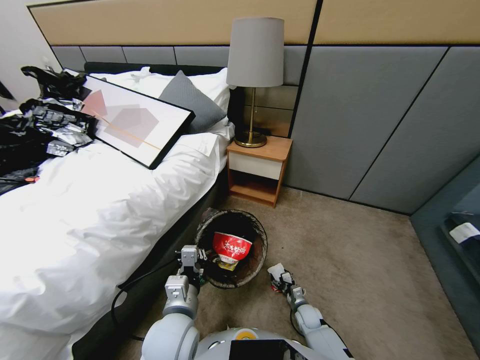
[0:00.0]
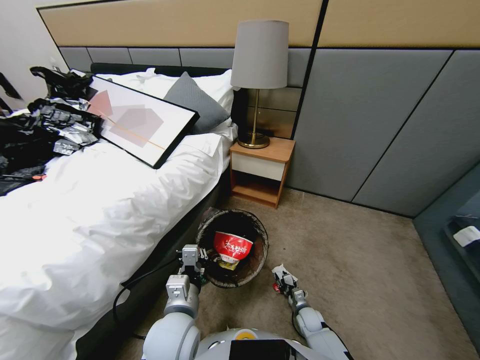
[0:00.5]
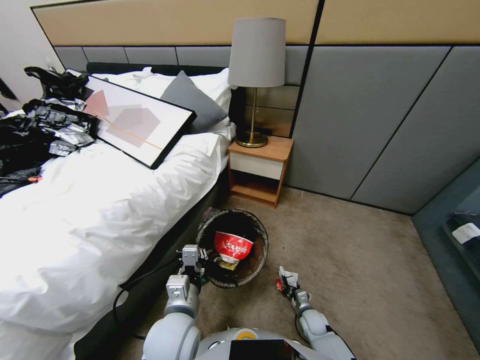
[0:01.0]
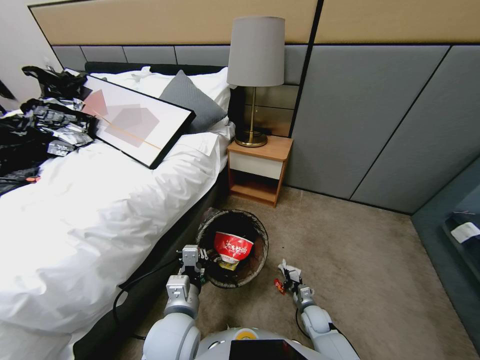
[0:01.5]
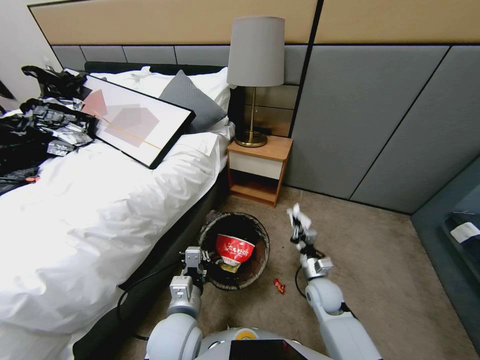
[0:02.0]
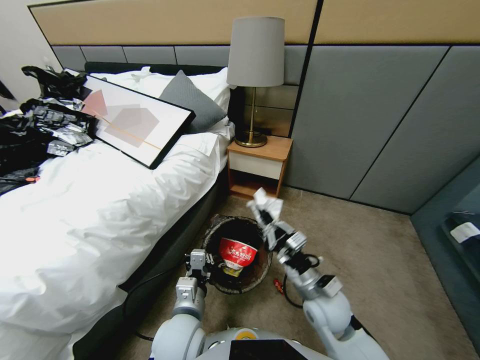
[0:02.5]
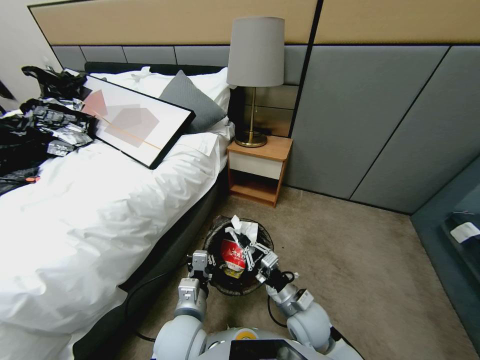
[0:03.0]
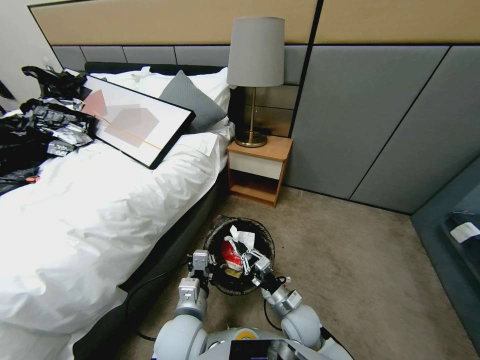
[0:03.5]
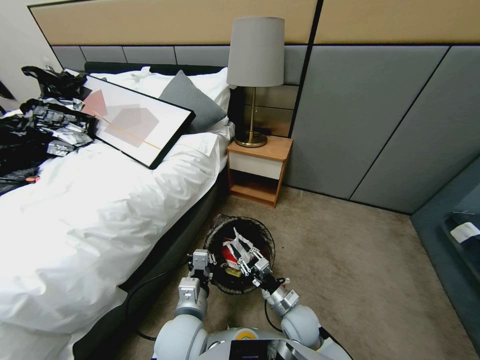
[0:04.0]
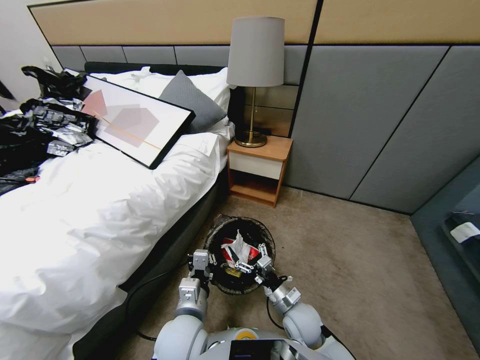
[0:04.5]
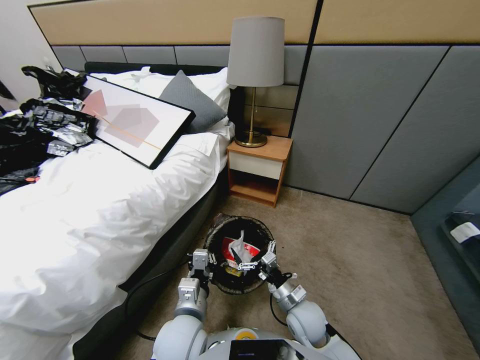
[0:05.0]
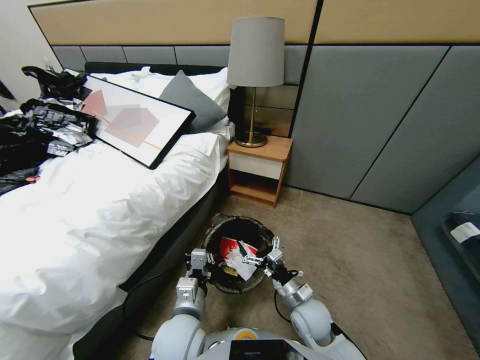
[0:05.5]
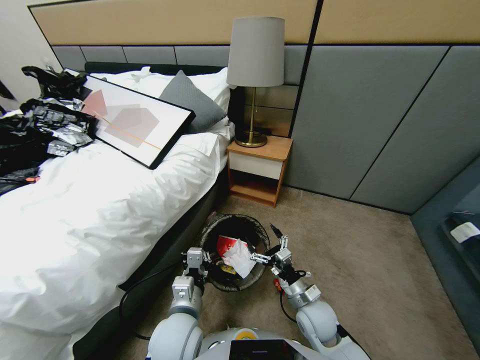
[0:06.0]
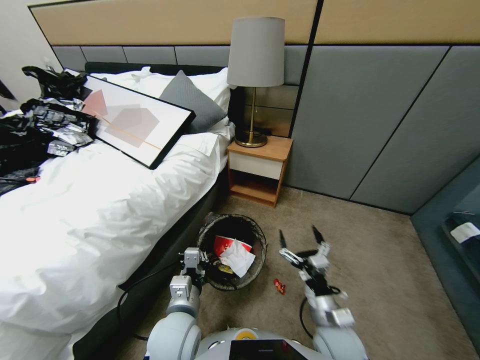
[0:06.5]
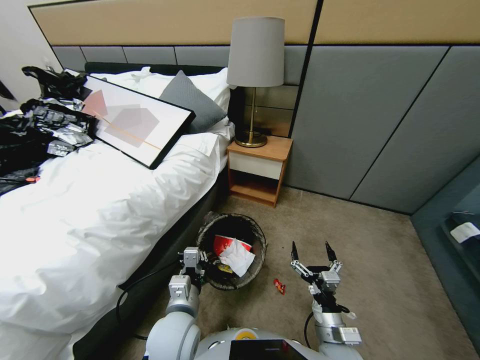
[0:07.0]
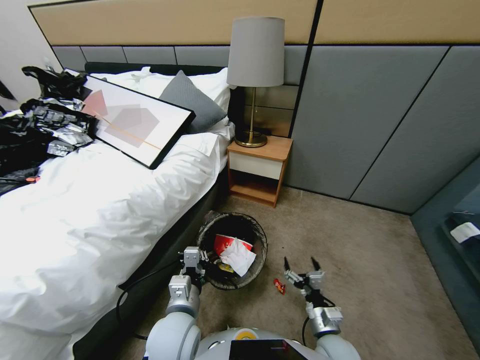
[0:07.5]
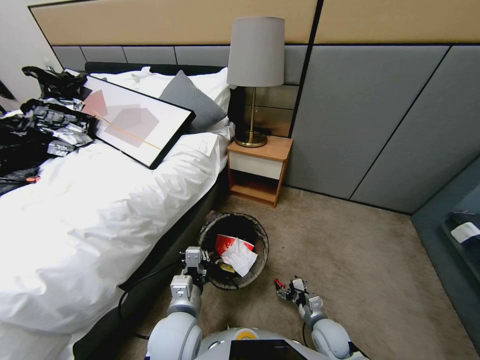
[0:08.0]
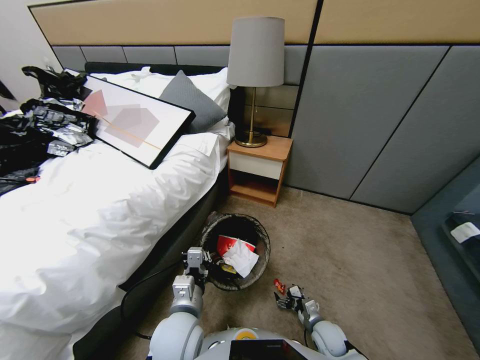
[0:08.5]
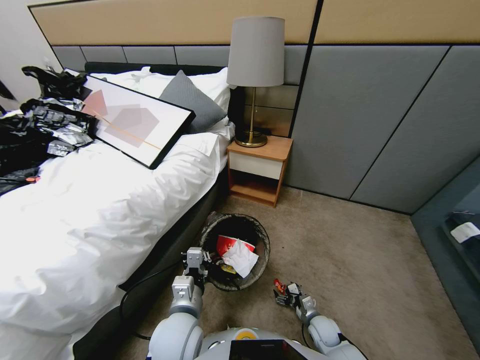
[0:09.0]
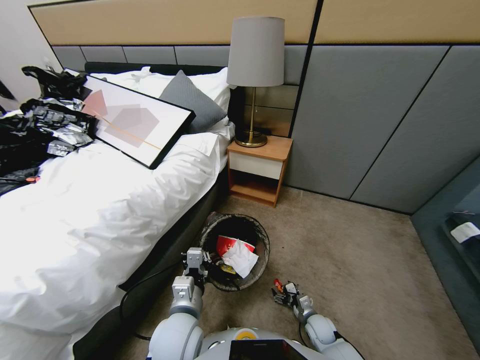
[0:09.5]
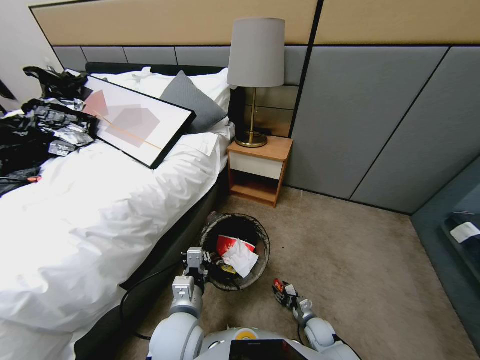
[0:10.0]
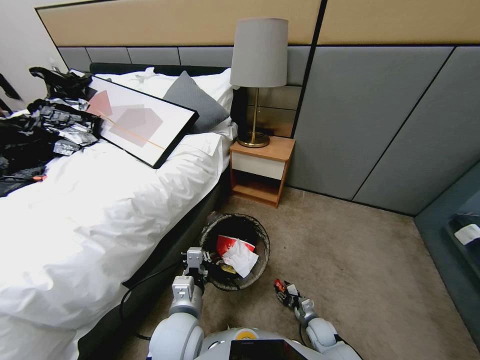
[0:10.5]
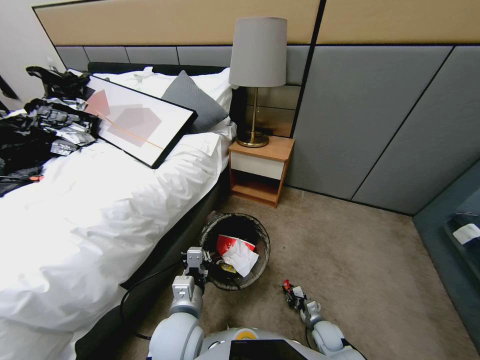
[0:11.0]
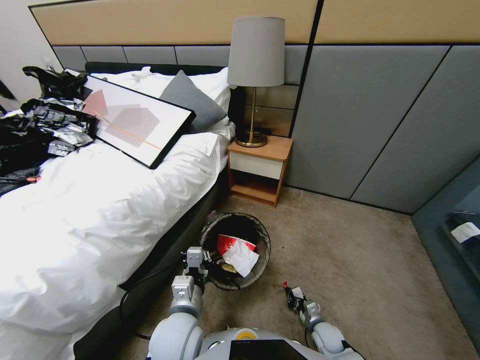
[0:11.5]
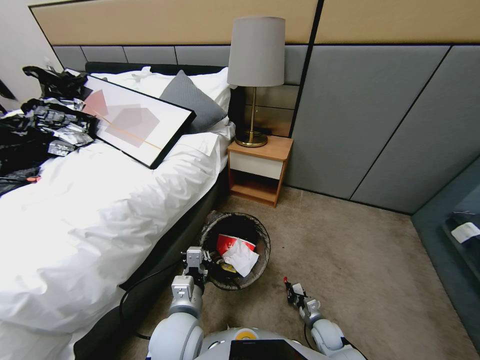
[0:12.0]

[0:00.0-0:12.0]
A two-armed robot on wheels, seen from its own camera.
Task of the whole recording: Pick up the trash bin, then pick up the garbage from the floor and place it into the trash bin.
0:00.0 to 0:02.0: The right gripper heads upward, covering about 25 cm, and closes.
0:02.0 to 0:04.0: The right gripper shifts about 10 cm to the left and backward, goes upward and returns, roughly 10 cm each way, and opens up.
0:04.0 to 0:06.0: The right gripper shifts by some 5 cm, and opens its fingers.
0:06.0 to 0:08.0: The right gripper goes some 15 cm downward and to the right.
0:08.0 to 0:10.0: The right gripper travels downward by some 10 cm, and closes.
0:10.0 to 0:12.0: The right gripper closes its fingers.

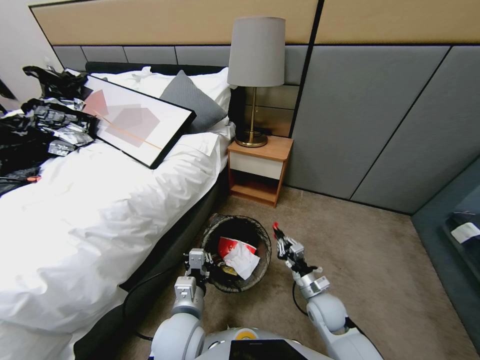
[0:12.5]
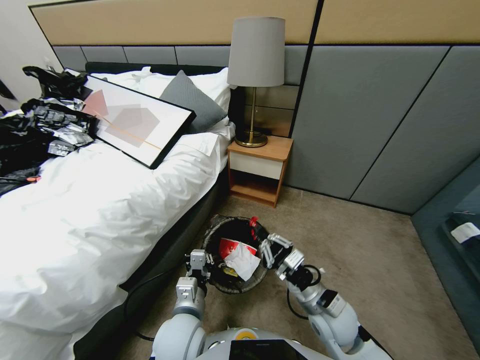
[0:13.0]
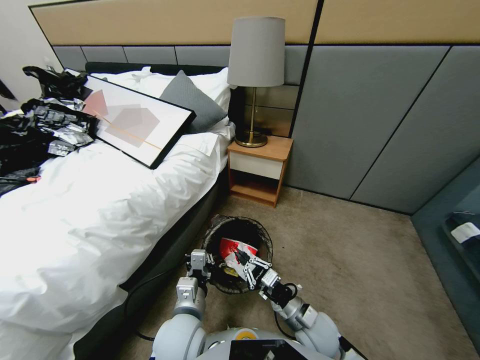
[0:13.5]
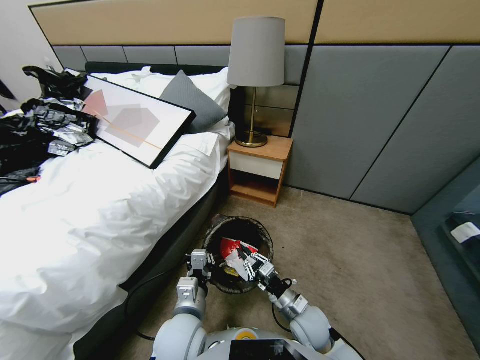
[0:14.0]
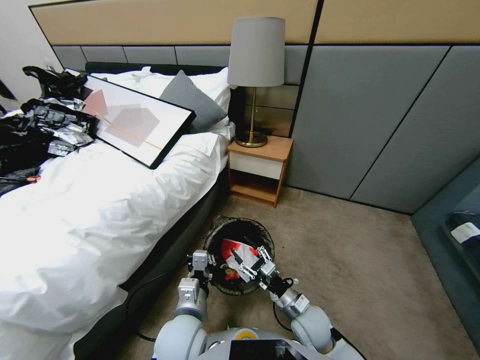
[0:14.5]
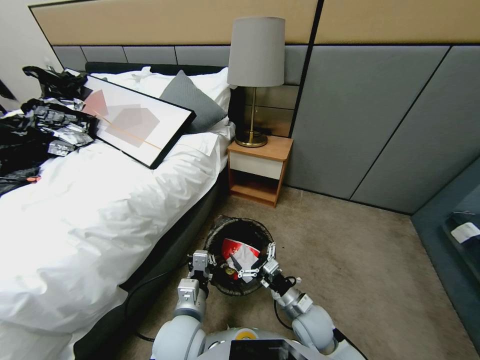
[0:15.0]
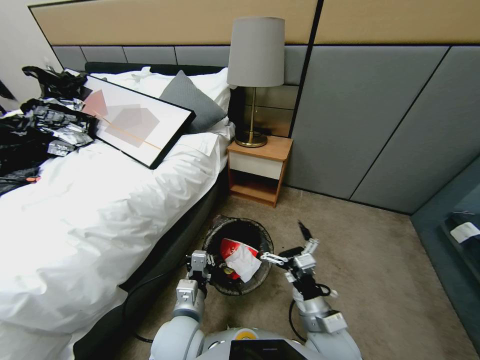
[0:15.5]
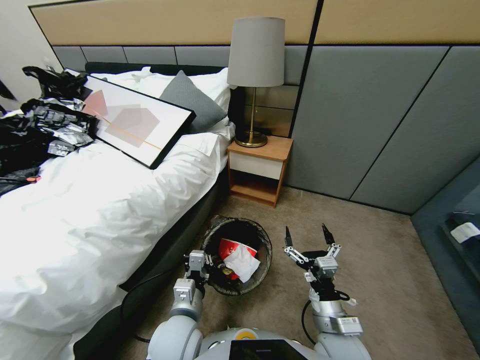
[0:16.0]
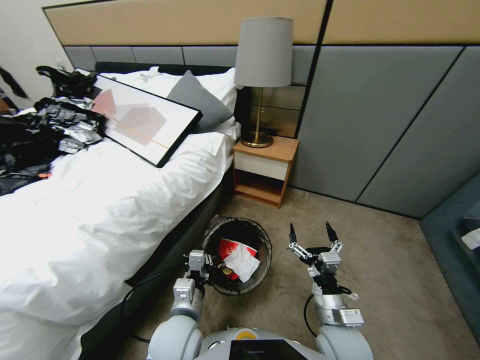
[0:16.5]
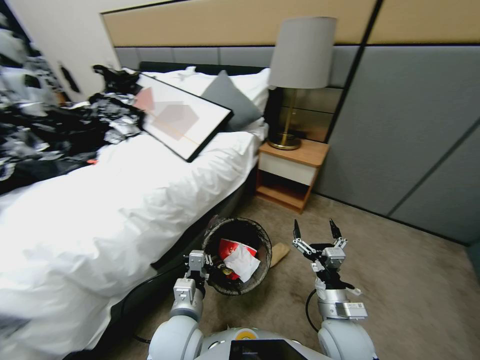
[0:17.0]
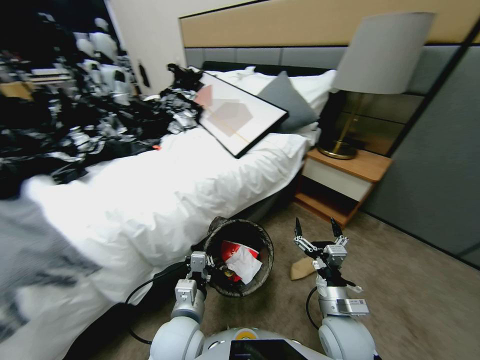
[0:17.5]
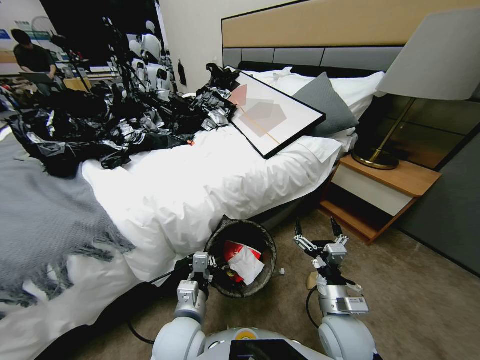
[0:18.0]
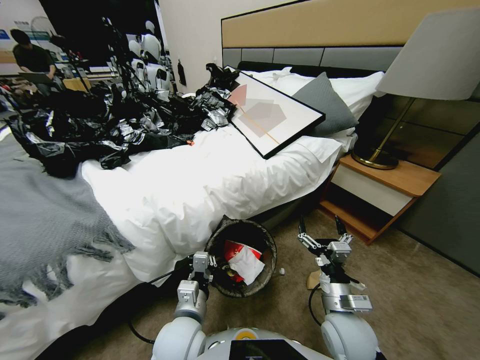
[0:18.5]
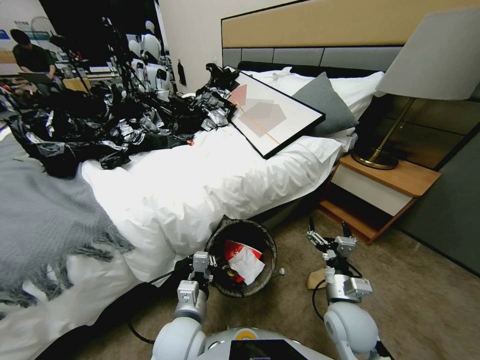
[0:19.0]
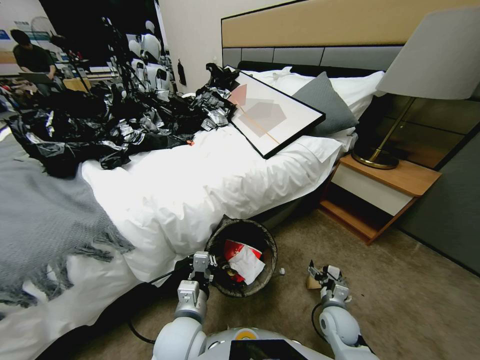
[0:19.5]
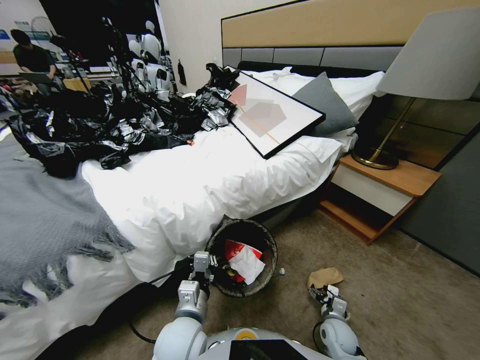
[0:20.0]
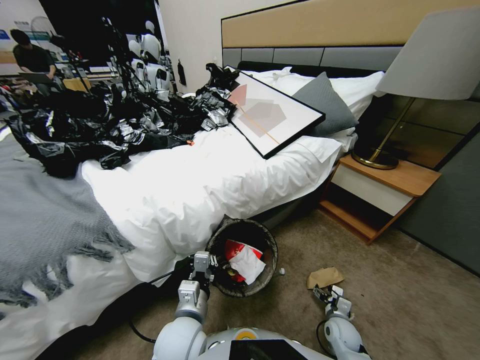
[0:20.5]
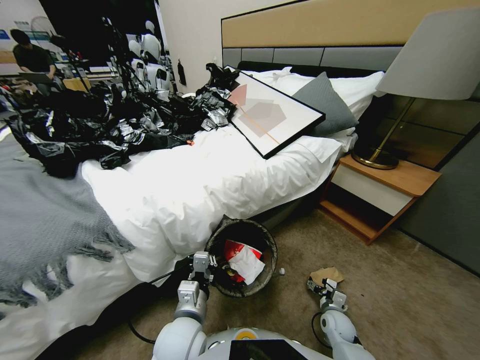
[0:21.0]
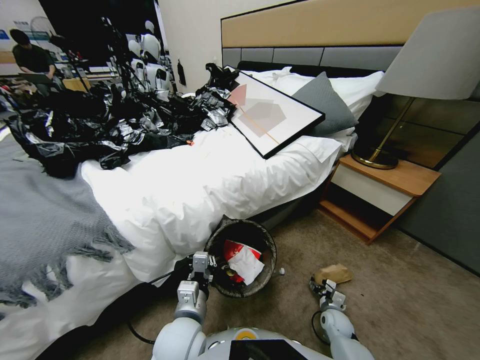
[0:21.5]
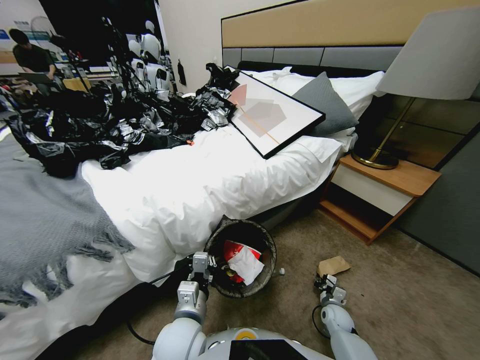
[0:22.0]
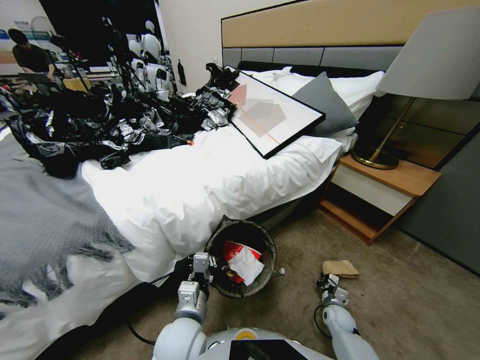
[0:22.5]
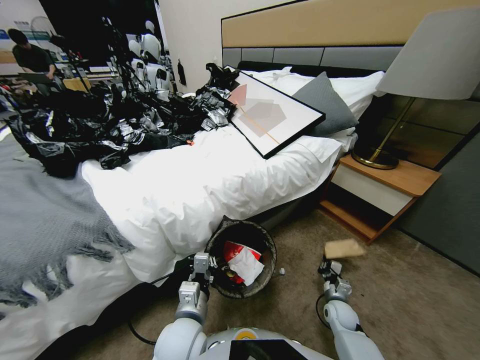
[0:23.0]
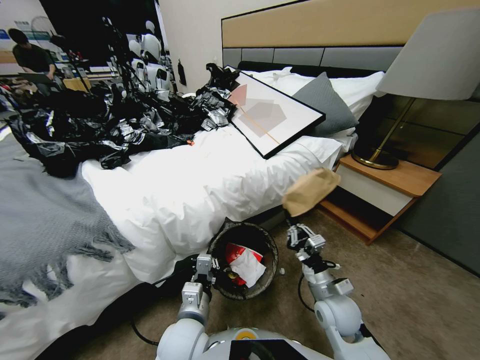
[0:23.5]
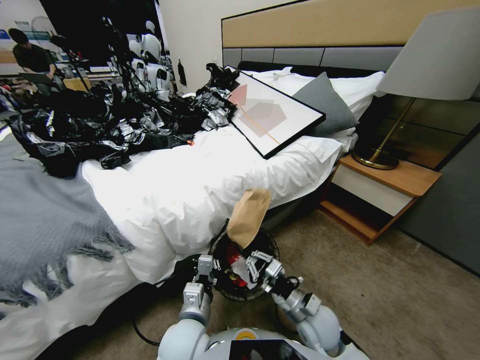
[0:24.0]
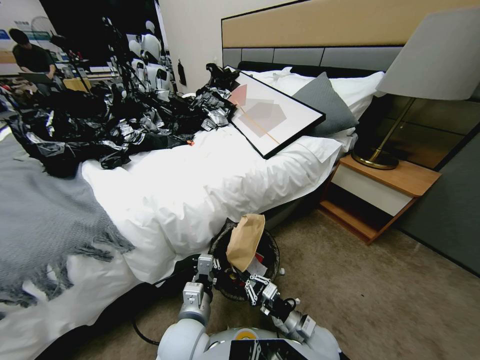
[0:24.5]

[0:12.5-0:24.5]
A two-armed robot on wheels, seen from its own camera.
Task of the whole recording: Pick up the trash bin, then pick up the garbage from the floor and place it into the trash bin.
0:12.5 to 0:14.5: The right gripper travels downward by about 5 cm, and opens up.
0:14.5 to 0:16.5: The right gripper goes about 10 cm upward.
0:18.5 to 0:20.5: The right gripper travels downward and to the right by approximately 25 cm.
0:20.5 to 0:22.5: The right gripper changes place by approximately 5 cm, and closes.
0:22.5 to 0:24.5: The right gripper travels to the left, upward and backward by approximately 25 cm.

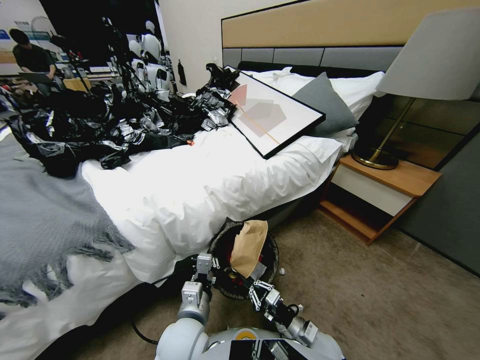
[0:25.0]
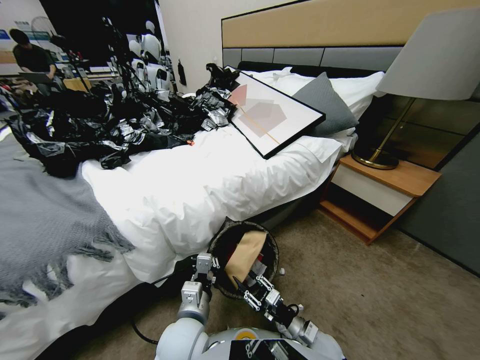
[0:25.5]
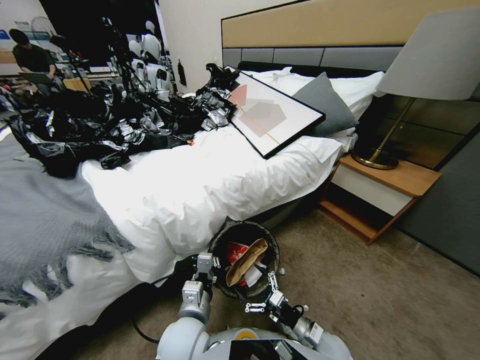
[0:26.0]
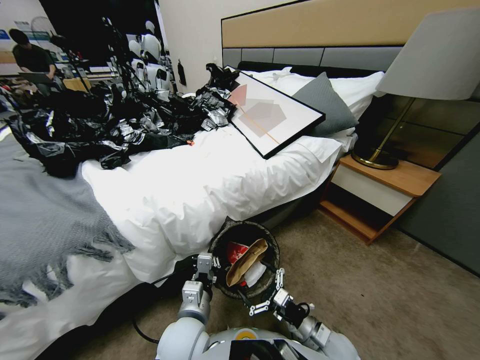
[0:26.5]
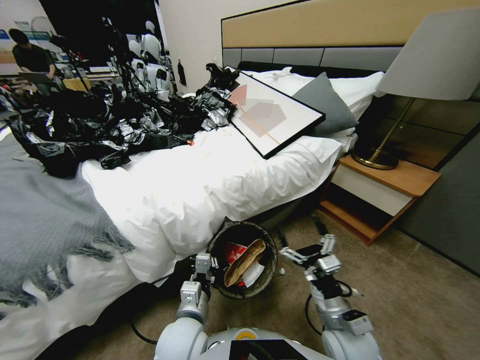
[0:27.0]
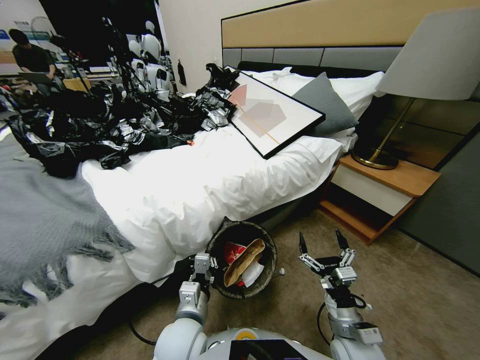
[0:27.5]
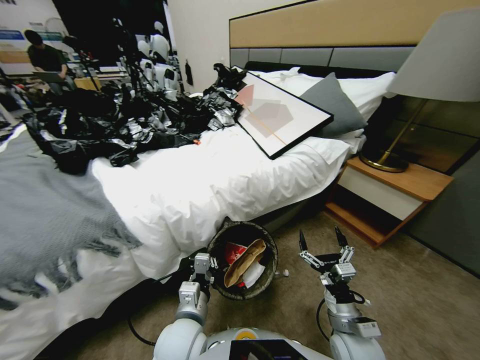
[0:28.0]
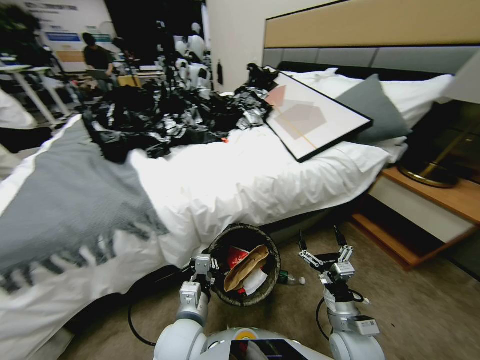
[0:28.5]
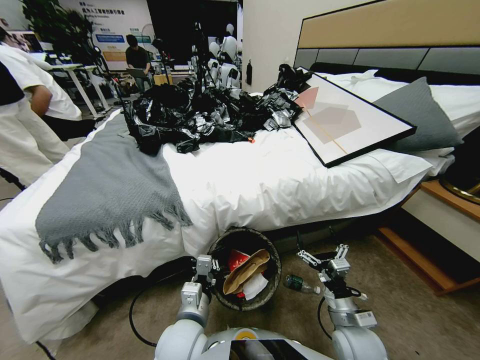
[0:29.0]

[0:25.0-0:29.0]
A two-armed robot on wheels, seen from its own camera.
Task of the whole recording: Pick up the trash bin, then pick up the garbage from the floor and place it into the trash bin.
0:25.0 to 0:27.0: The right gripper goes approximately 10 cm upward, and opens.
0:27.0 to 0:29.0: The right gripper goes about 5 cm to the right.
